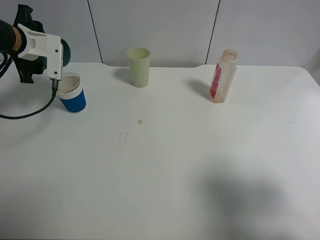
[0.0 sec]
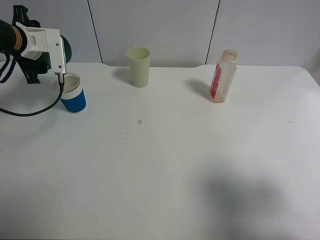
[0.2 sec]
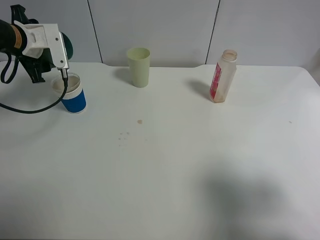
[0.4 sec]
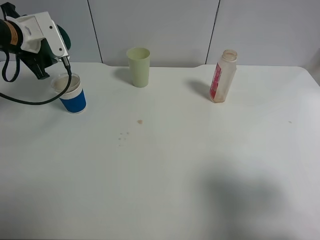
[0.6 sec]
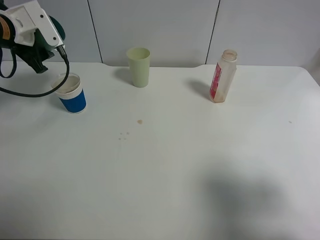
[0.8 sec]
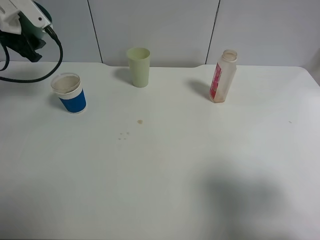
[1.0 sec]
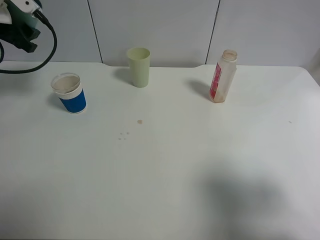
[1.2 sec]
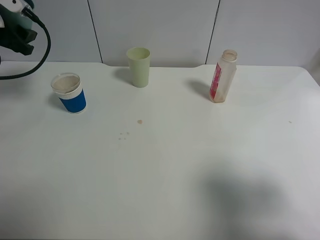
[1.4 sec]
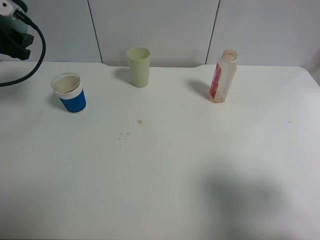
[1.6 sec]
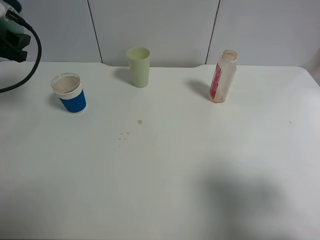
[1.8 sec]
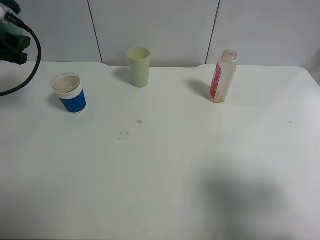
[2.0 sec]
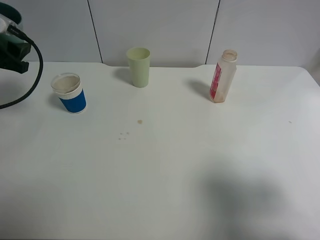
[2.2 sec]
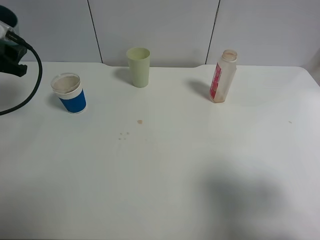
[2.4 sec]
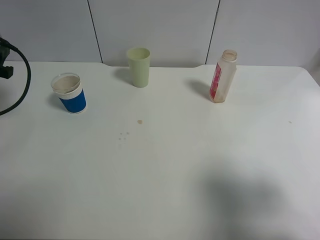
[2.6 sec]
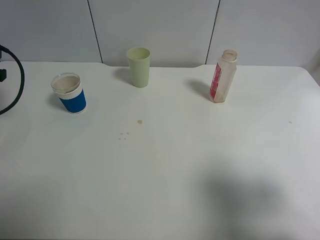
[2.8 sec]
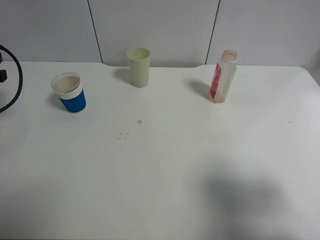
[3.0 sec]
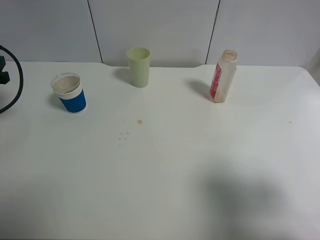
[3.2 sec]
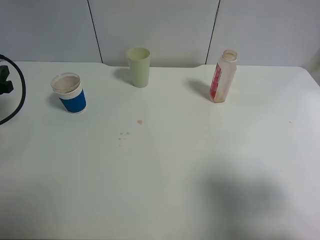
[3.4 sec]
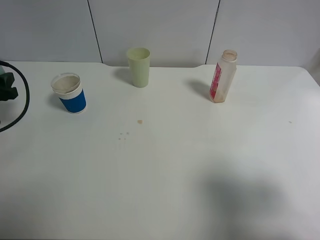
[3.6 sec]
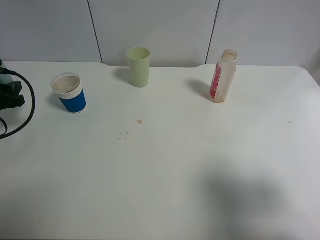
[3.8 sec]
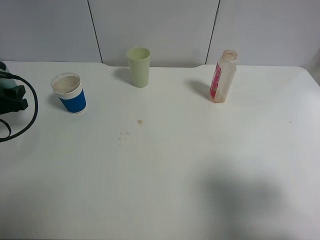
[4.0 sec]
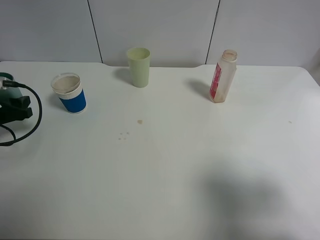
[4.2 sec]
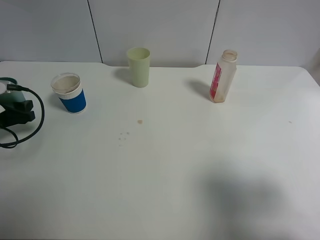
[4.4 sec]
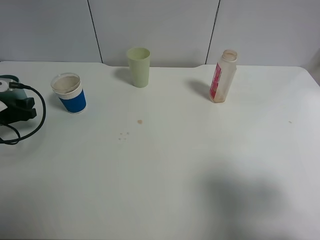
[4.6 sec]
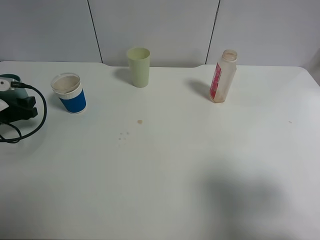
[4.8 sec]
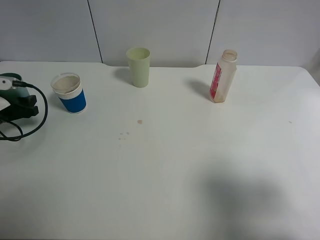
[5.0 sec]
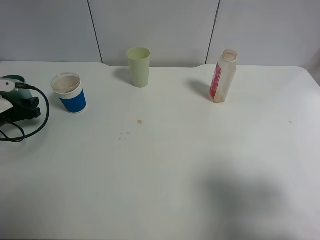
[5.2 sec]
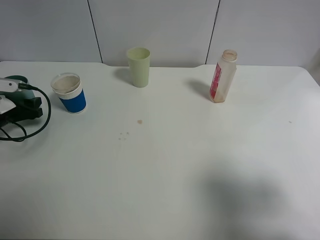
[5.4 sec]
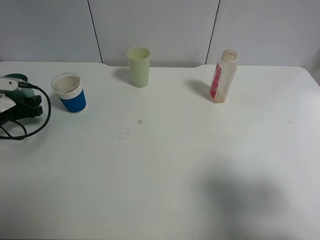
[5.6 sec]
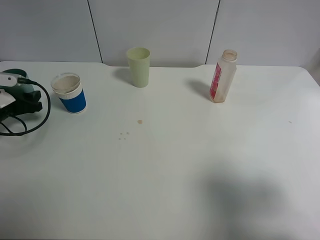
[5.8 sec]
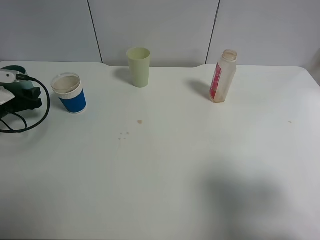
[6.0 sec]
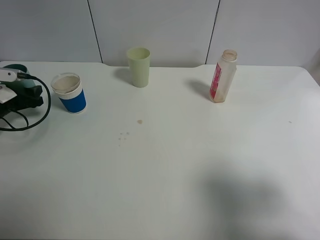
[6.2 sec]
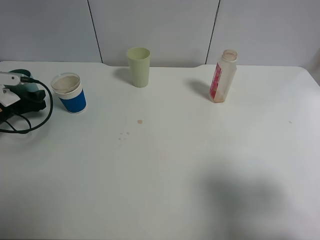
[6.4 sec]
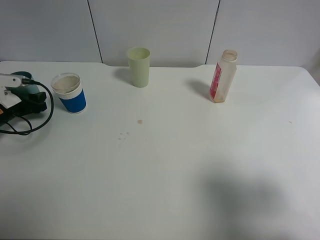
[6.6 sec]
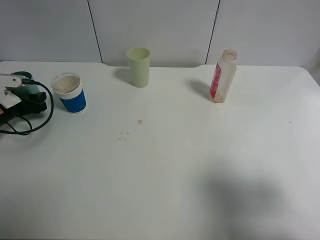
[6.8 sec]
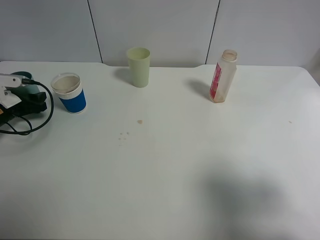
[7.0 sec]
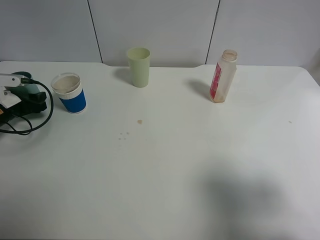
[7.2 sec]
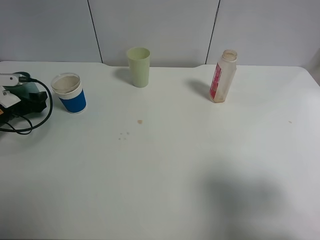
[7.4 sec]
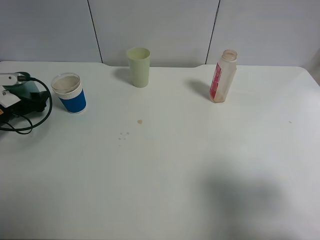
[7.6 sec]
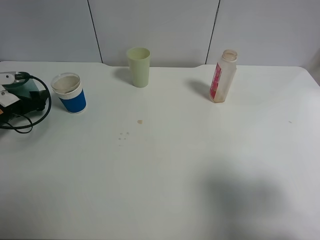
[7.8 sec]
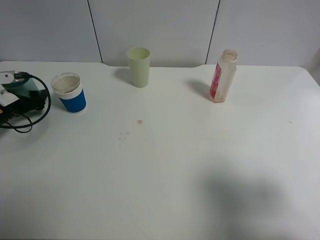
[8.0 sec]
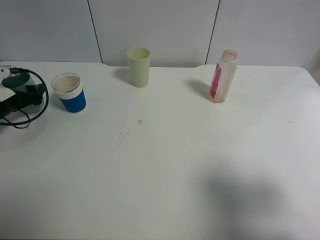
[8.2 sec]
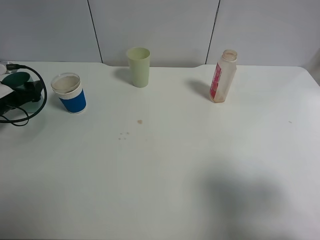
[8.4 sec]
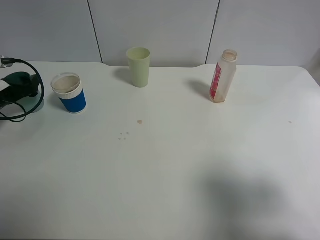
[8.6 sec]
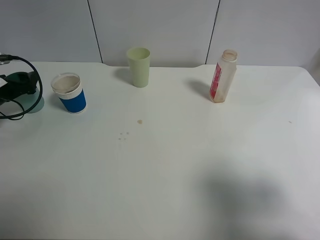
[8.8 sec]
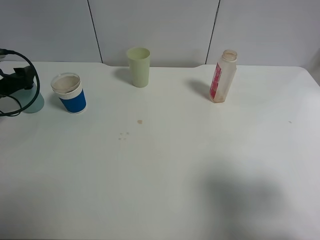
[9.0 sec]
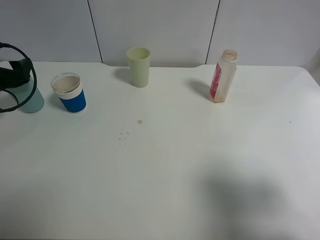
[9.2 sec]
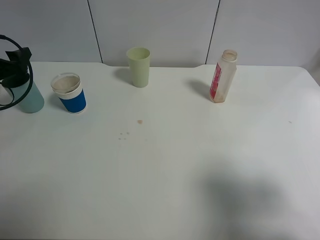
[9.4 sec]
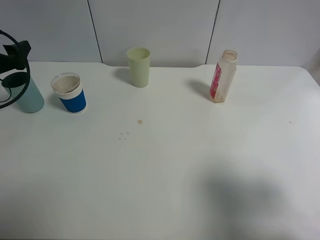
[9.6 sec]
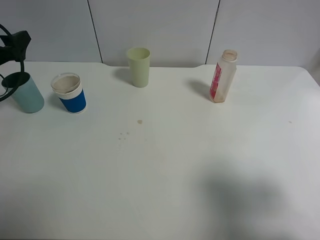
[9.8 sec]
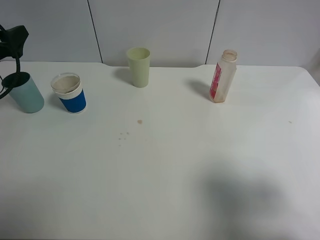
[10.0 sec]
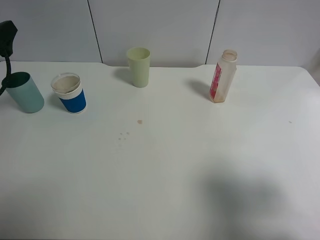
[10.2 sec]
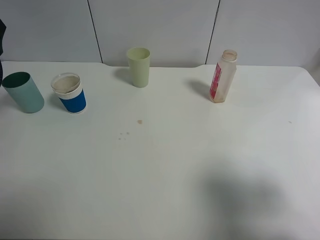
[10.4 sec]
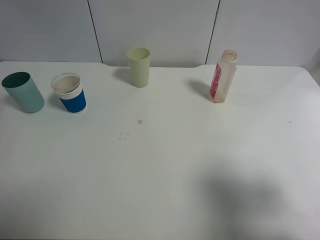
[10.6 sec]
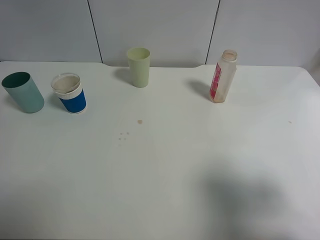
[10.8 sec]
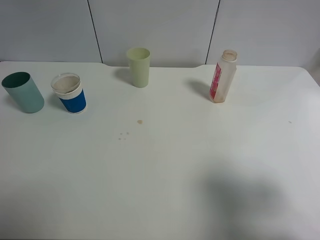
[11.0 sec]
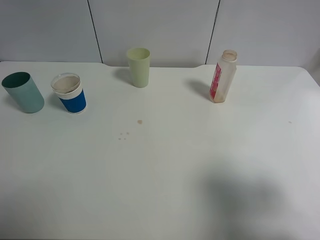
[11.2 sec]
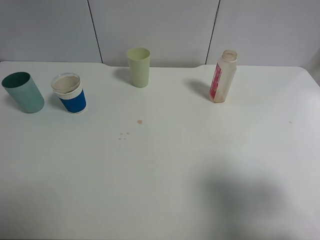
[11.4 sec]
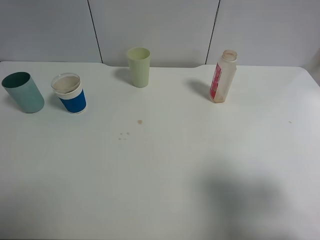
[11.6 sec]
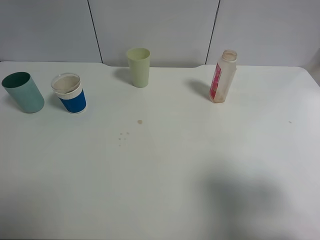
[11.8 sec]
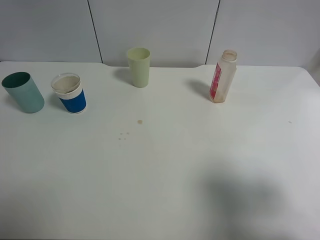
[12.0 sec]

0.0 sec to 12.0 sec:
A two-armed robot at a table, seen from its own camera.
Task of the whole recording: use a clamp to hold the bottle of the drink, pour the beverage into a random cup, then clamp the cup containing the drink and pour the drink into another random cup.
Step, 0.0 sec to 7.8 sec: Place the blue plastic cup on the table with left gripper.
0.0 sec to 1.6 sec: The left gripper shifts by some 10 cm.
1.6 sec to 3.0 sec: The left gripper travels backward by roughly 5 cm.
3.0 sec to 4.4 sec: The left gripper shifts some 10 cm downward.
4.4 sec to 6.0 sec: The left gripper moves forward, some 5 cm.
6.0 sec to 7.6 sec: The left gripper opens up.
7.6 sec to 9.0 sec: The left gripper goes roughly 5 cm upward.
9.0 sec to 10.4 sec: The left gripper shifts roughly 15 cm upward and backward, and opens up.
